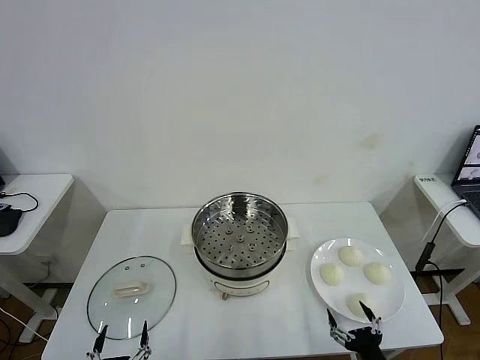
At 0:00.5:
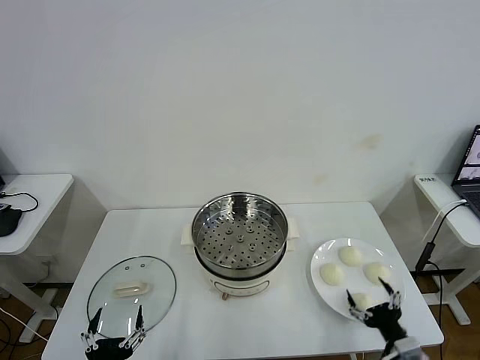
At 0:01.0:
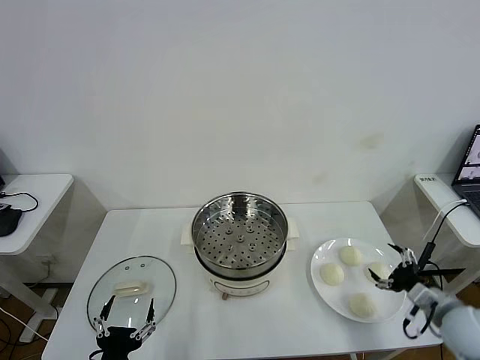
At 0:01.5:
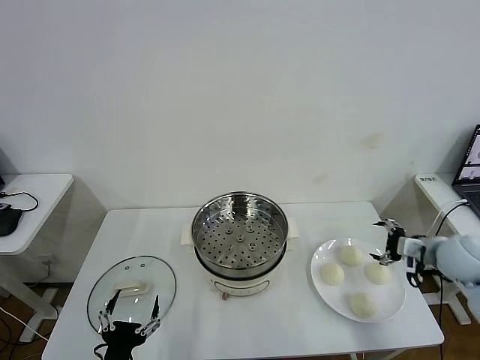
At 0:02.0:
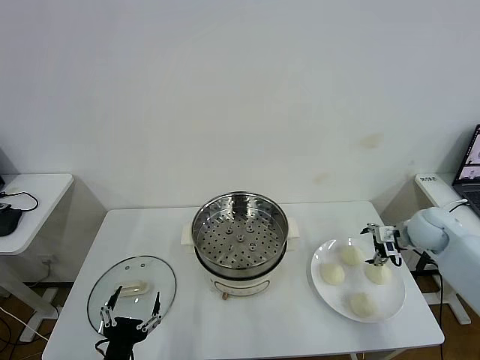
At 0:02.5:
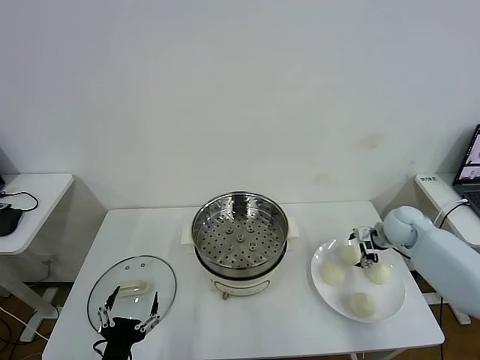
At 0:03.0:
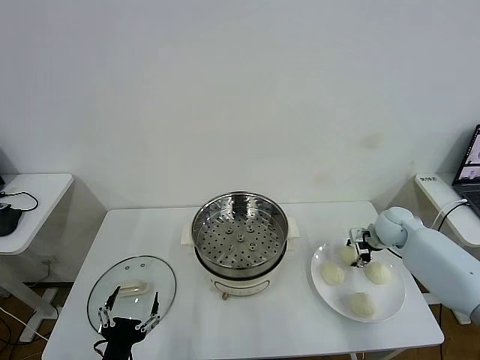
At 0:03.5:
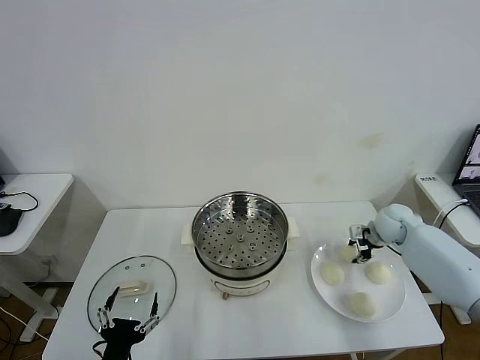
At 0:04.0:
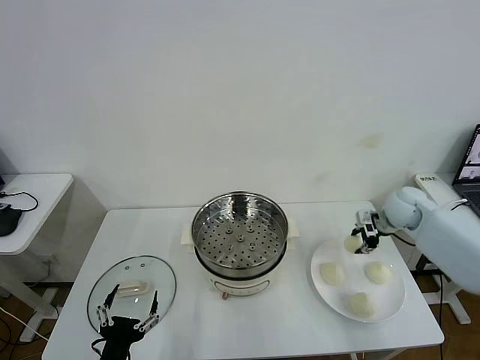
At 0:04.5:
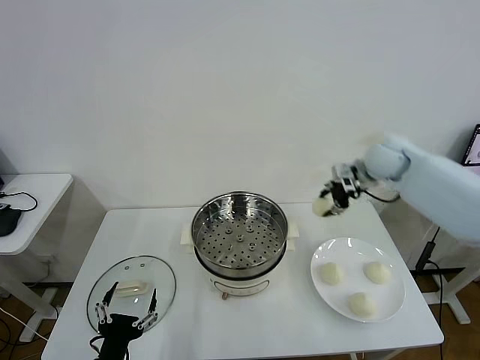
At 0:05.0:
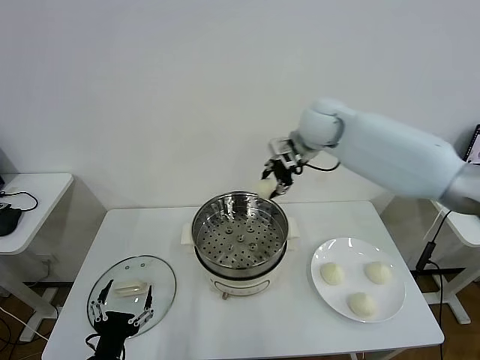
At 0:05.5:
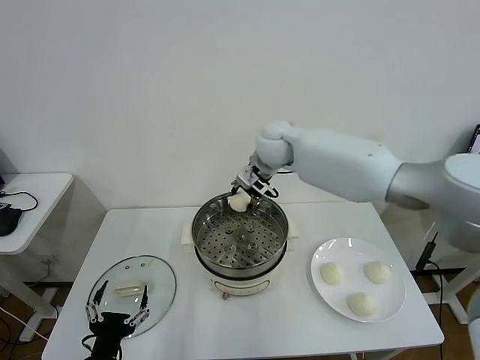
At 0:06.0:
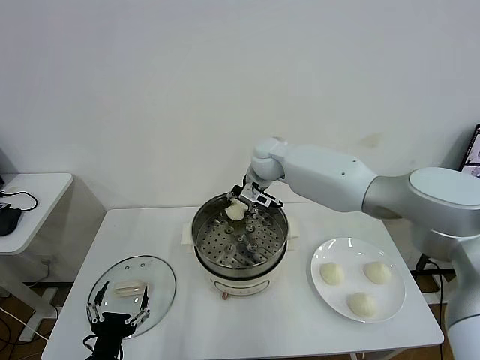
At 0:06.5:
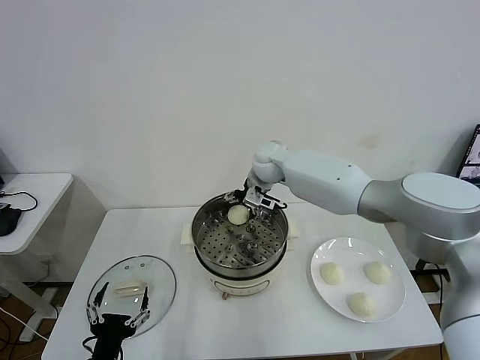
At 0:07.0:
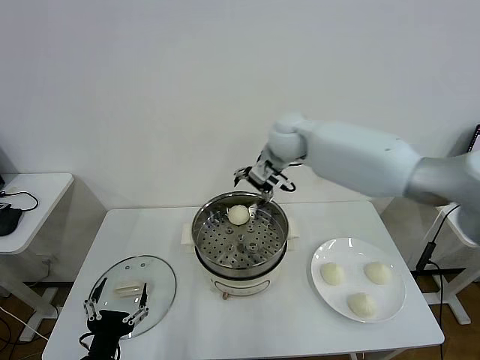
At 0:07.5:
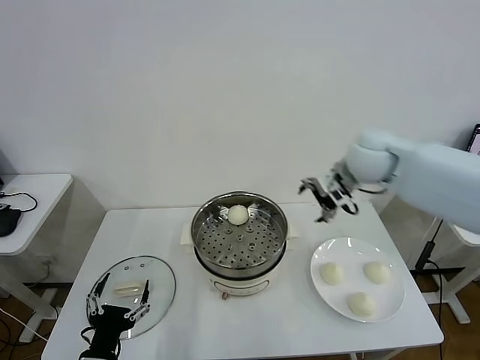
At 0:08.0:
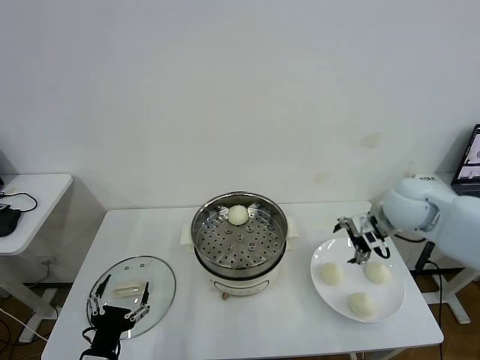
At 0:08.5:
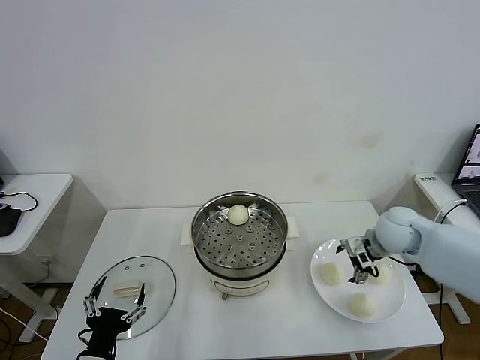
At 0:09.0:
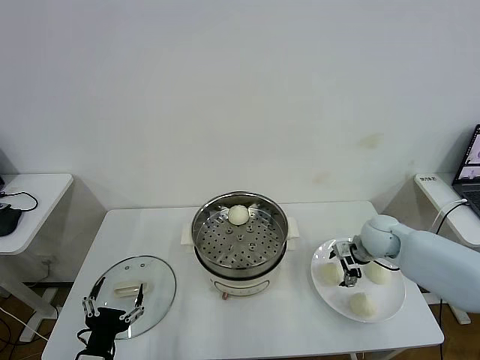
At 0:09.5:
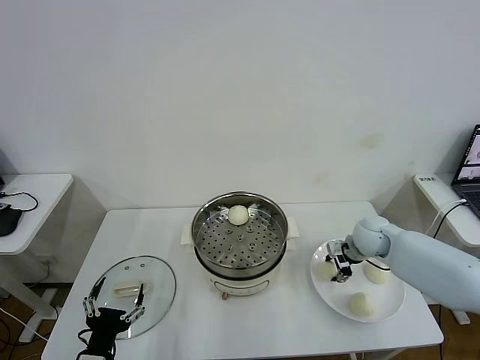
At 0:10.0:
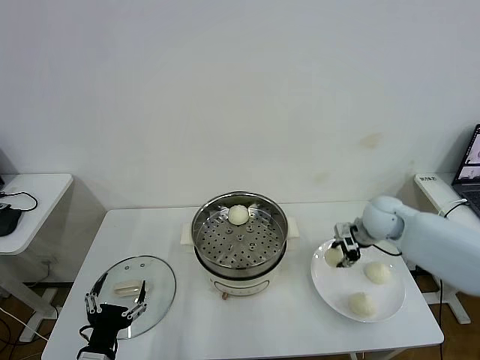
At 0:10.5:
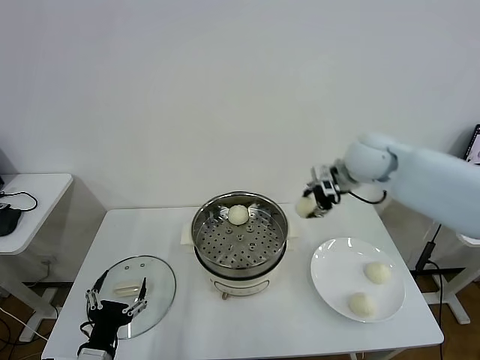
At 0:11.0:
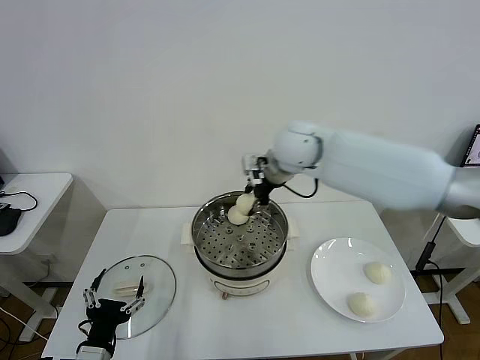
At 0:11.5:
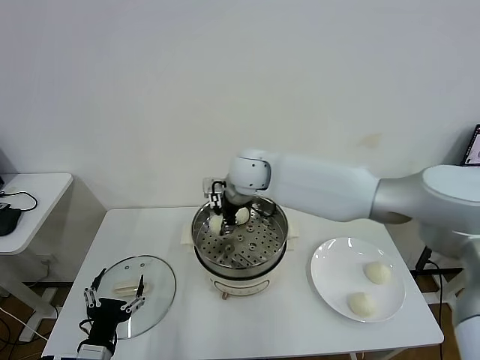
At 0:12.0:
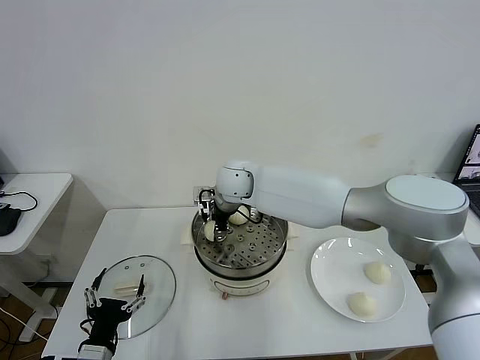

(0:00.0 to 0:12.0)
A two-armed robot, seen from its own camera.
Task of the whole recording: take steamed baozi put them in steamer then cover it.
Step, 0:00.0 - 0:03.5: Grasp the baozi in the plate with right gripper.
Step, 0:04.0 - 0:06.5: Place the baozi on the steamer with right gripper.
Step, 0:07.0 - 0:09.5: Grasp the baozi in the plate with right gripper.
0:02.0 - 0:04.0: The right gripper heads upward, covering roughly 5 cm, and closes its fingers.
0:04.0 - 0:06.0: The right gripper heads to the left, covering roughly 30 cm.
0:06.0 - 0:08.0: The right gripper travels to the right and backward by approximately 30 cm, and opens.
0:08.0 - 0:10.0: The right gripper goes some 5 cm forward, moves roughly 15 cm downward and comes back, and closes its fingers.
0:10.0 - 0:12.0: The right gripper goes roughly 35 cm to the left.

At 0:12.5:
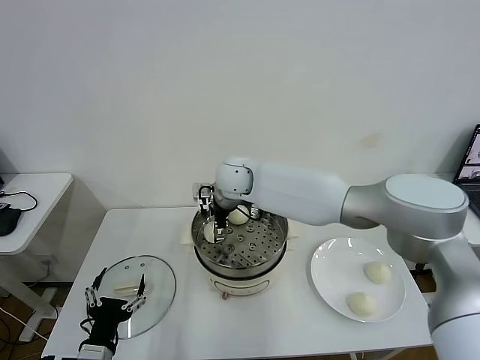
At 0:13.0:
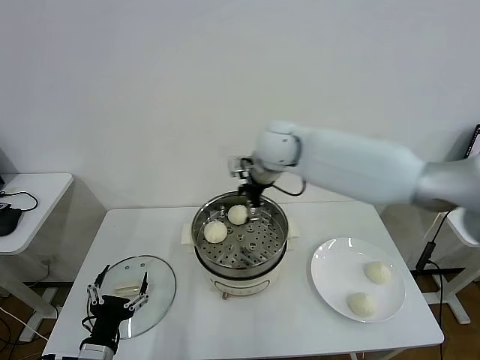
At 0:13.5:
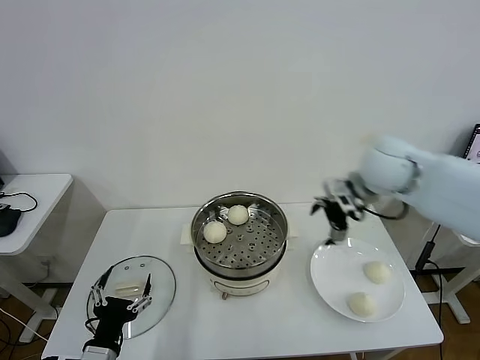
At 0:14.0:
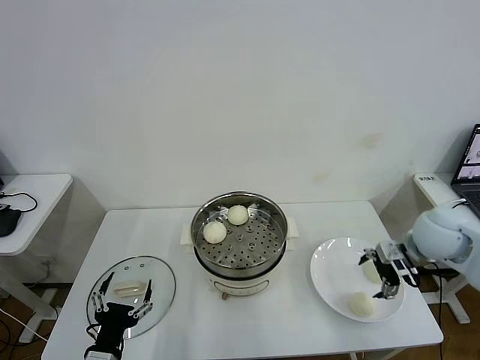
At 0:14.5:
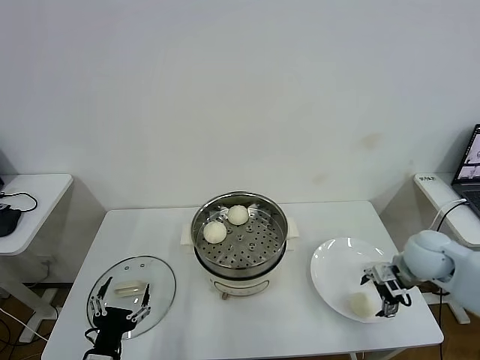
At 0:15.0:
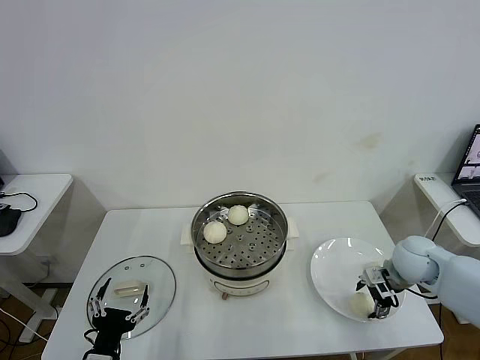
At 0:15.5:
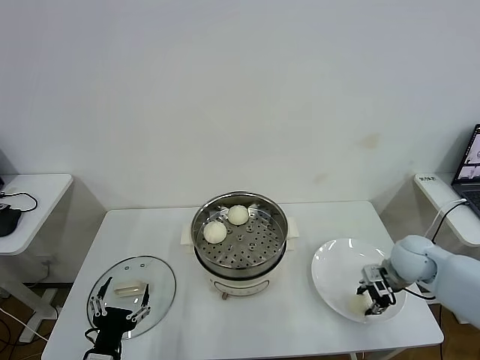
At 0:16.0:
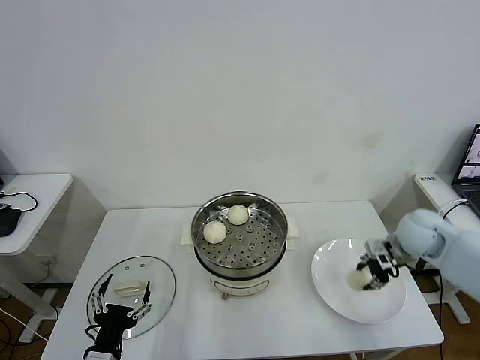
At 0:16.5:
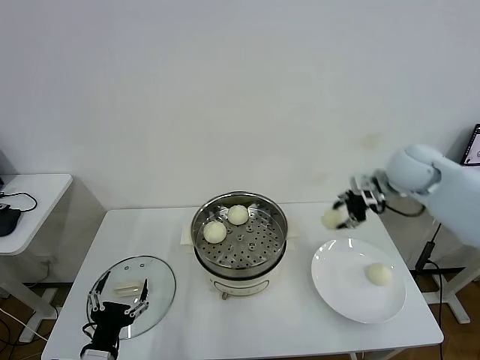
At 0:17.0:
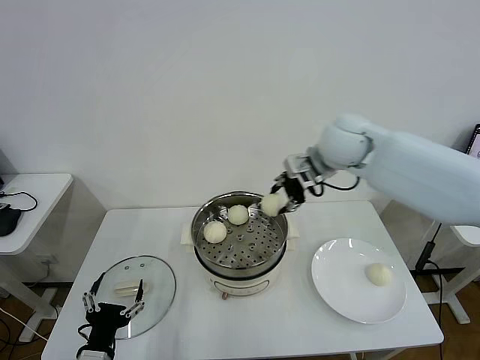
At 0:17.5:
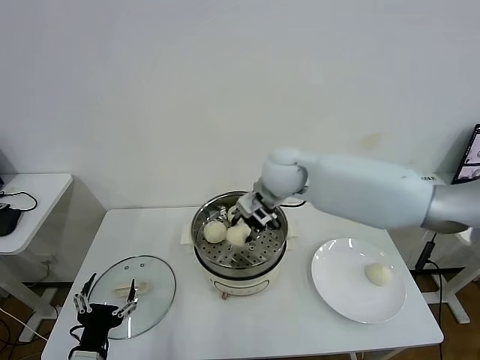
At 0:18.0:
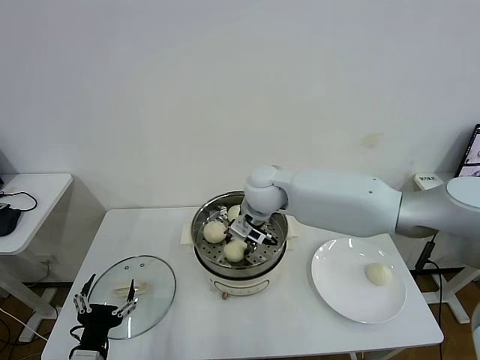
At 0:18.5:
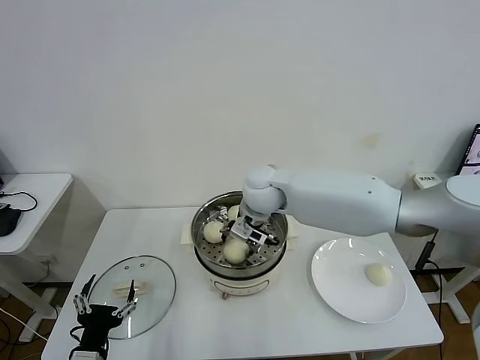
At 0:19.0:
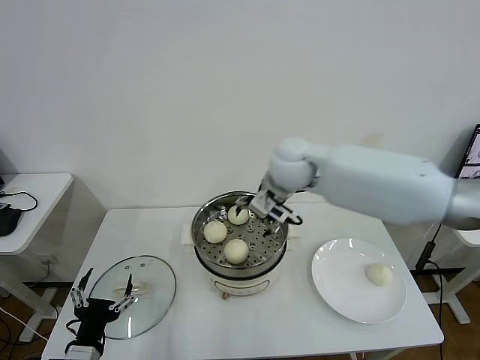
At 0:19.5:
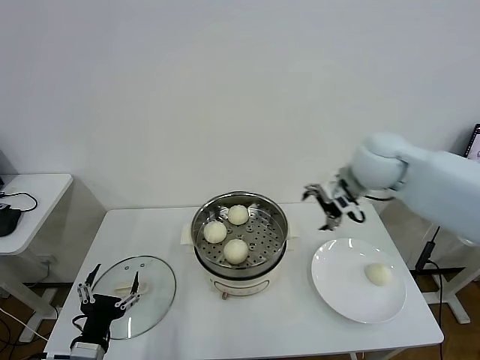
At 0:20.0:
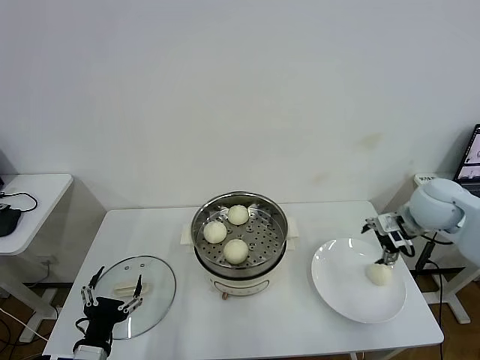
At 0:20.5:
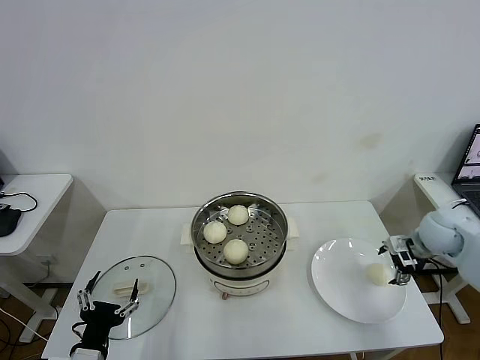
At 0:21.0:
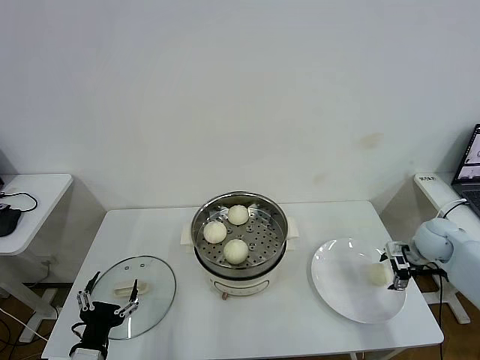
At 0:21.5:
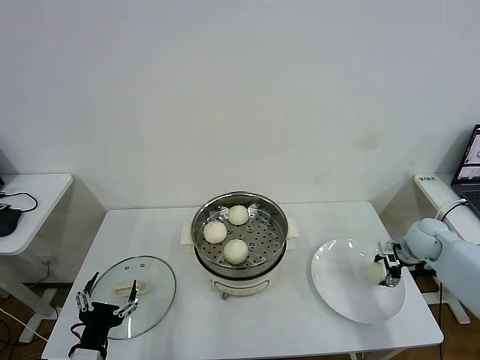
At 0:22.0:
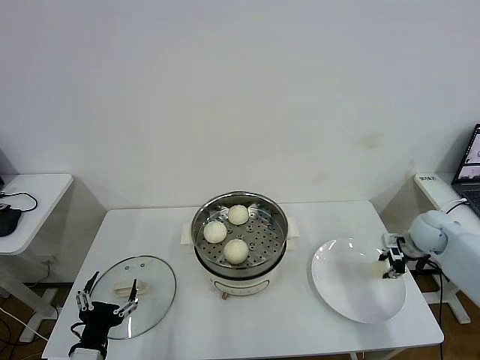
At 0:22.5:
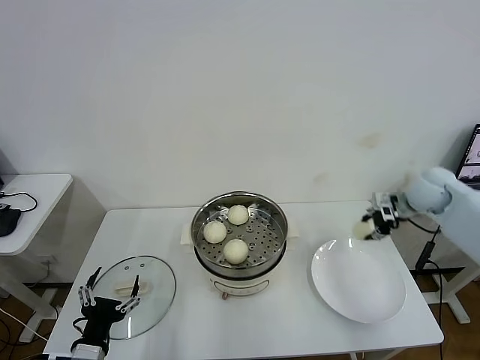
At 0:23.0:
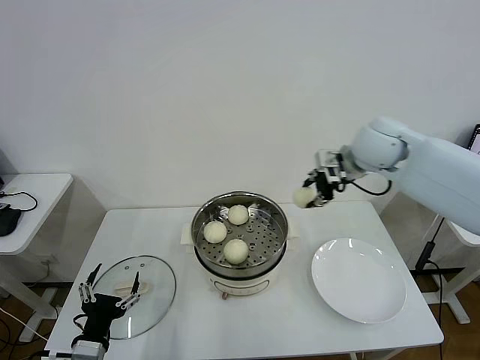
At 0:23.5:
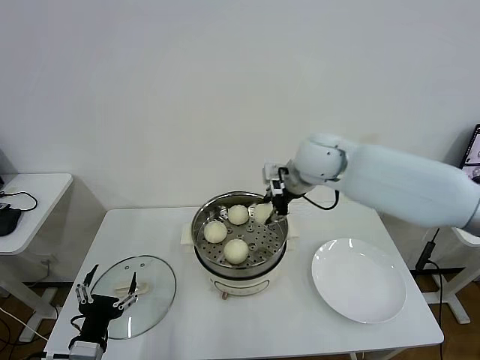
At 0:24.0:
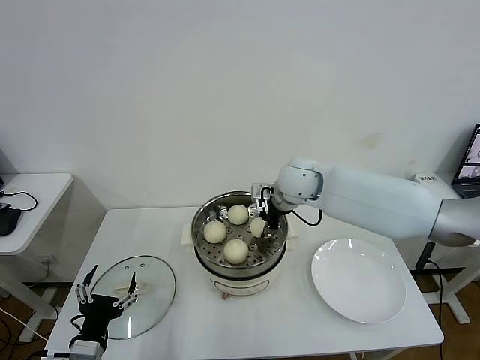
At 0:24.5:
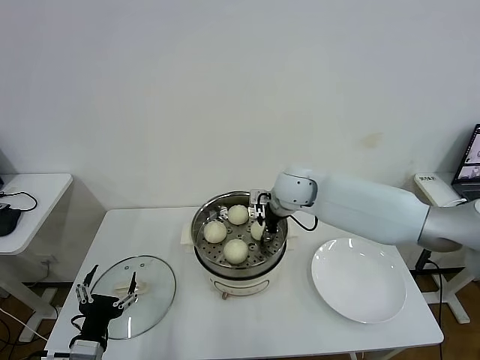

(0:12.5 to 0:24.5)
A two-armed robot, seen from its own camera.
Task of the whole recording: take steamed baozi put them in steamer then cover it.
Step, 0:13.0 - 0:15.5: Grasp the baozi in the plate with right gripper.
Step, 0:16.0 - 0:18.5: Place the baozi on the steamer with right gripper.
Step, 0:19.0 - 0:21.5: Grasp the baozi in the plate with right gripper.
0:12.5 - 0:14.5: The right gripper heads to the right, covering approximately 40 cm.
0:14.5 - 0:16.5: The right gripper goes about 20 cm upward and forward, and closes its fingers.
0:16.5 - 0:18.5: The right gripper goes about 30 cm to the left, and opens up.
0:18.5 - 0:20.5: The right gripper is displaced to the right by about 40 cm.
0:20.5 - 0:22.5: The right gripper shifts about 10 cm upward and forward, and closes its fingers.
0:22.5 - 0:24.5: The right gripper moves to the left, roughly 30 cm.

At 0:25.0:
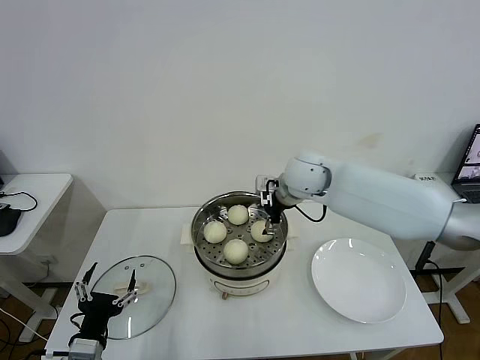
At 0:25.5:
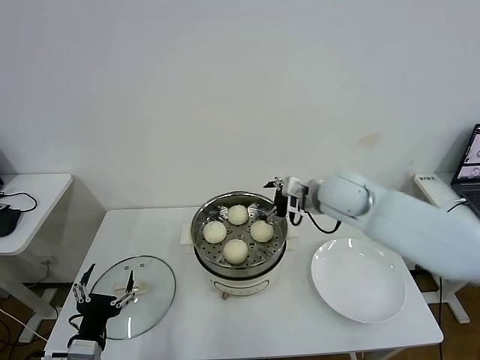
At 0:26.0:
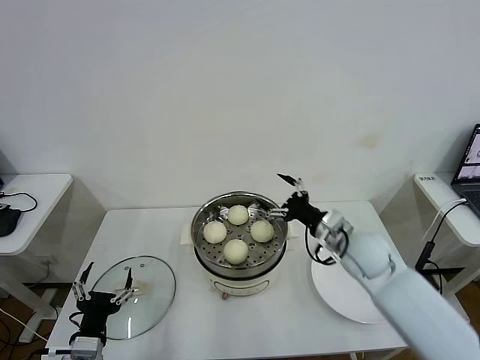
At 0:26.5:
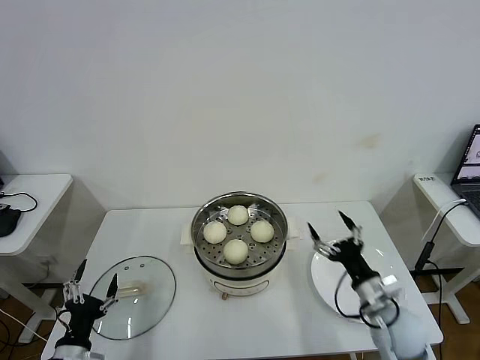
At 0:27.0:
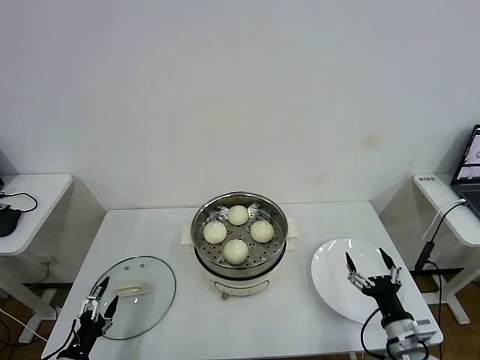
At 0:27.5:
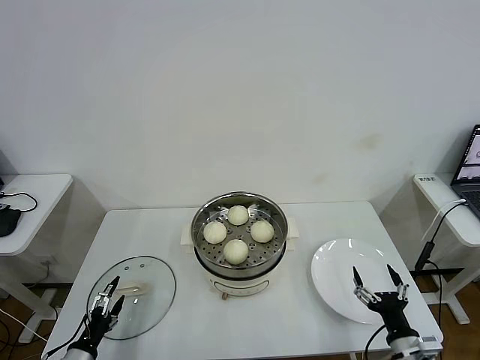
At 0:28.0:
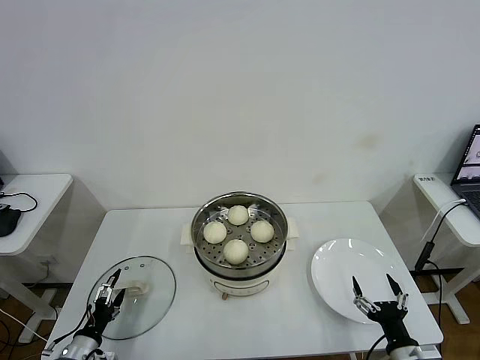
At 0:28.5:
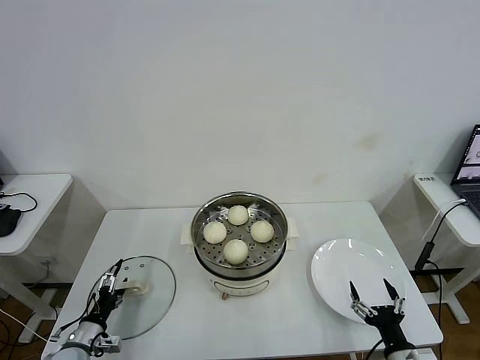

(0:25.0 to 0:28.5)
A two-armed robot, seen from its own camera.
Task of the whole recording: take steamed baozi put them in steamer then cover it.
0:25.0 - 0:27.0: The right gripper heads backward, downward and to the right, covering roughly 50 cm; the left gripper travels to the left and downward by approximately 10 cm.
0:27.0 - 0:28.5: The left gripper goes roughly 10 cm forward, while the right gripper shifts approximately 5 cm backward.
